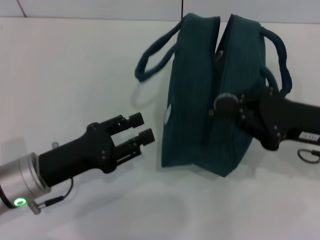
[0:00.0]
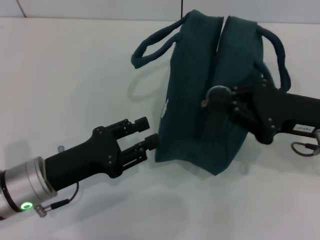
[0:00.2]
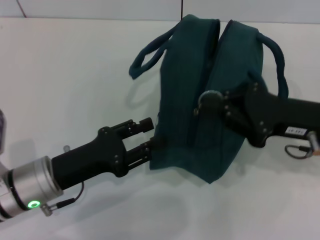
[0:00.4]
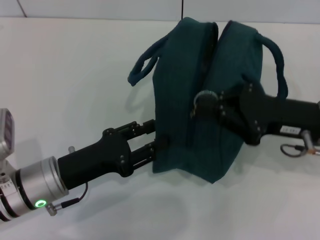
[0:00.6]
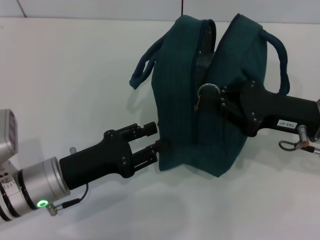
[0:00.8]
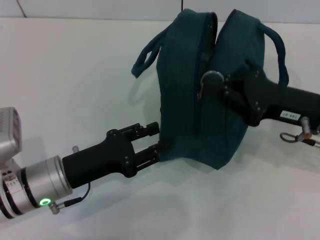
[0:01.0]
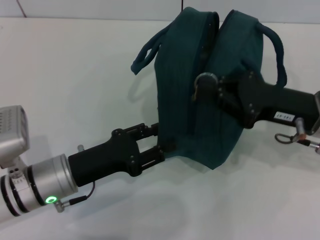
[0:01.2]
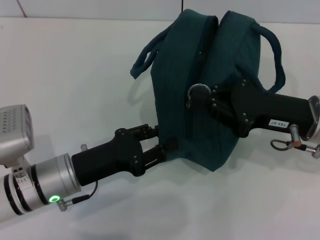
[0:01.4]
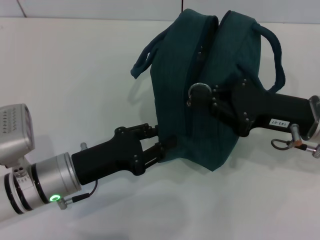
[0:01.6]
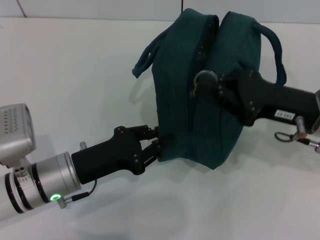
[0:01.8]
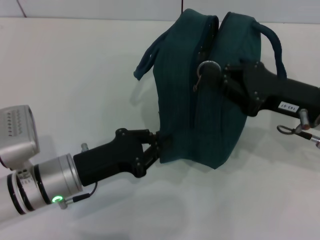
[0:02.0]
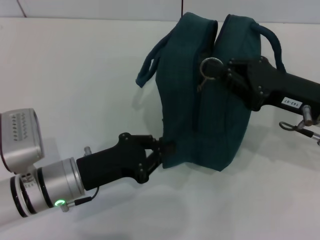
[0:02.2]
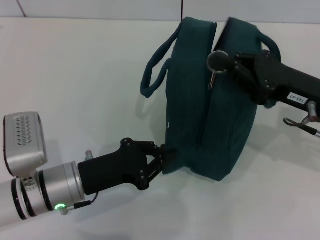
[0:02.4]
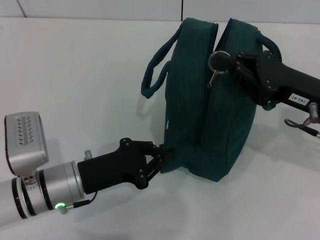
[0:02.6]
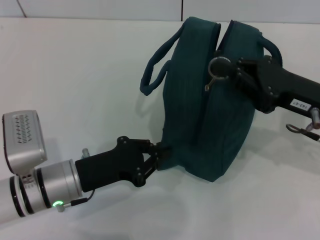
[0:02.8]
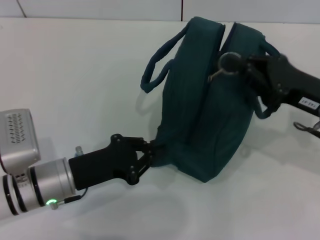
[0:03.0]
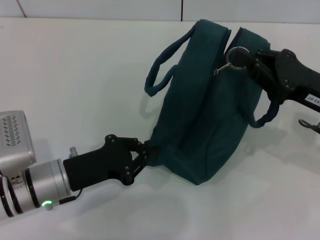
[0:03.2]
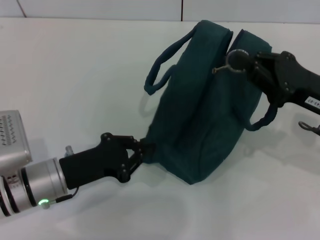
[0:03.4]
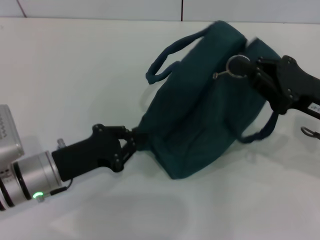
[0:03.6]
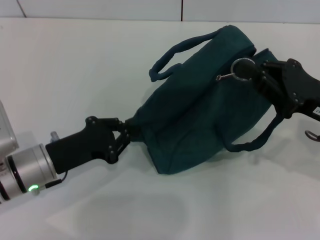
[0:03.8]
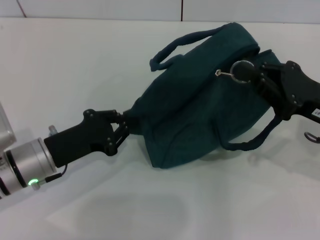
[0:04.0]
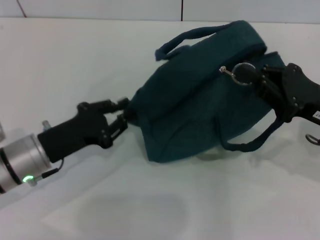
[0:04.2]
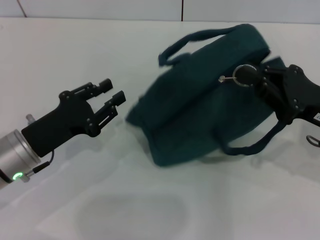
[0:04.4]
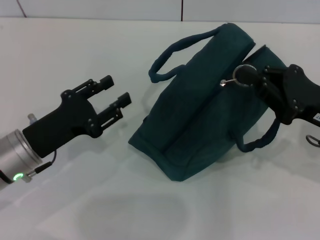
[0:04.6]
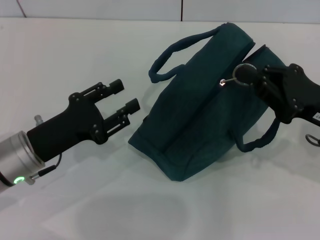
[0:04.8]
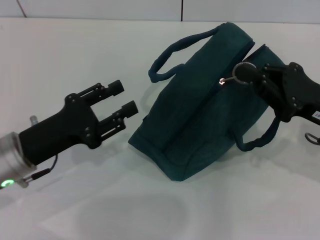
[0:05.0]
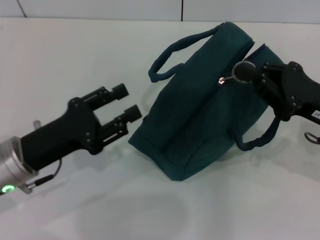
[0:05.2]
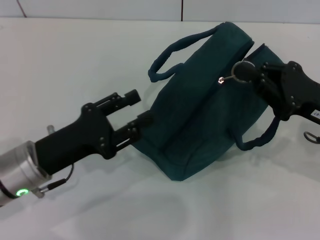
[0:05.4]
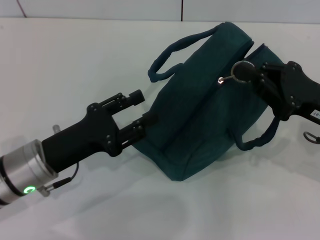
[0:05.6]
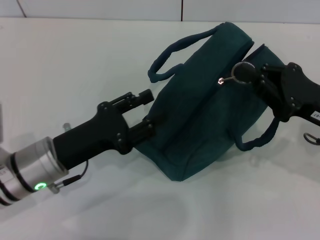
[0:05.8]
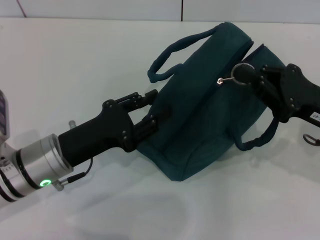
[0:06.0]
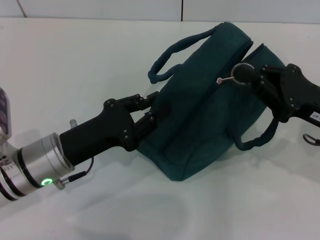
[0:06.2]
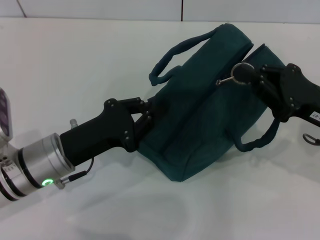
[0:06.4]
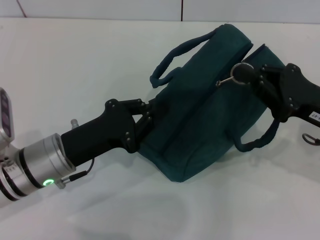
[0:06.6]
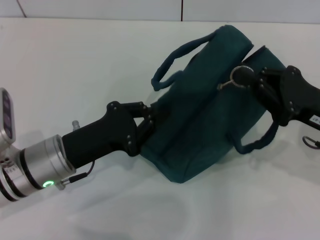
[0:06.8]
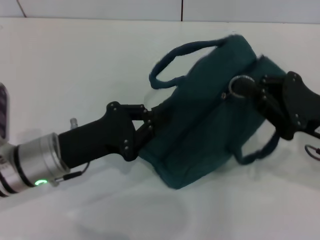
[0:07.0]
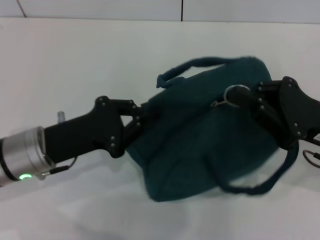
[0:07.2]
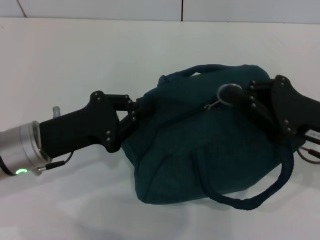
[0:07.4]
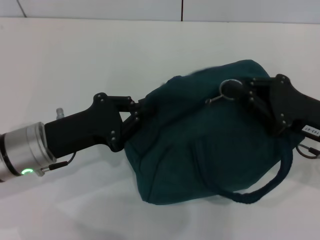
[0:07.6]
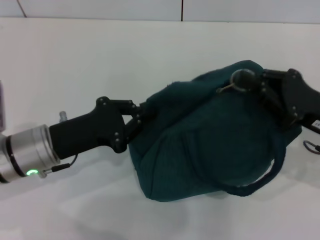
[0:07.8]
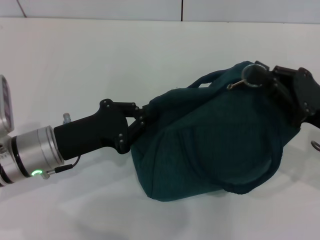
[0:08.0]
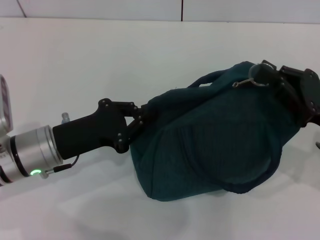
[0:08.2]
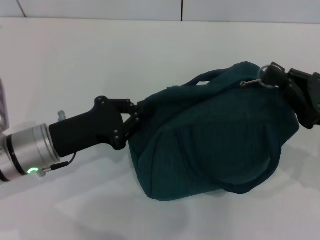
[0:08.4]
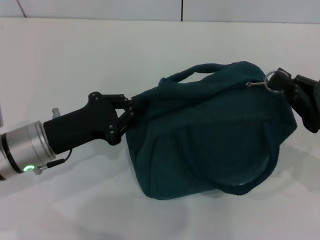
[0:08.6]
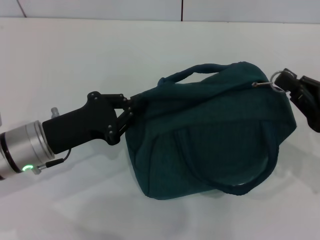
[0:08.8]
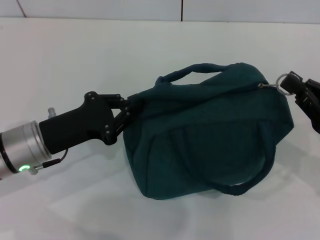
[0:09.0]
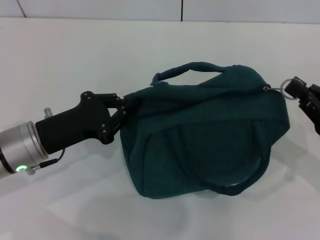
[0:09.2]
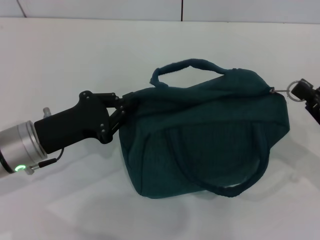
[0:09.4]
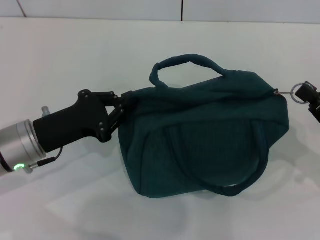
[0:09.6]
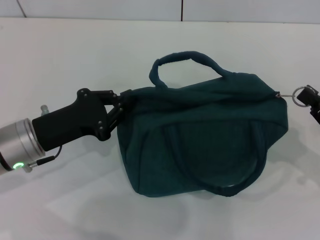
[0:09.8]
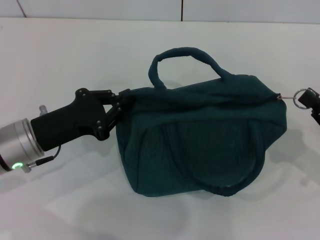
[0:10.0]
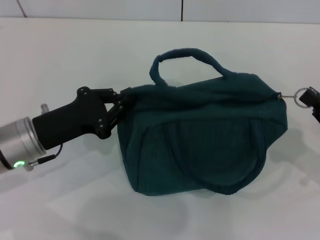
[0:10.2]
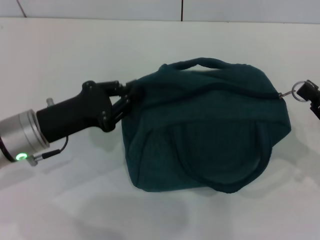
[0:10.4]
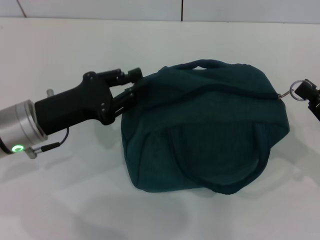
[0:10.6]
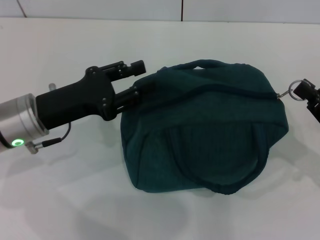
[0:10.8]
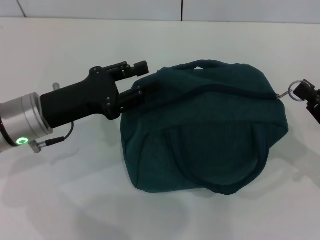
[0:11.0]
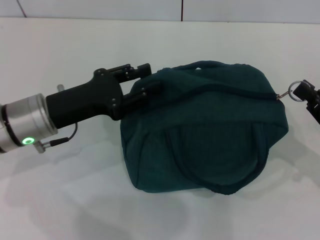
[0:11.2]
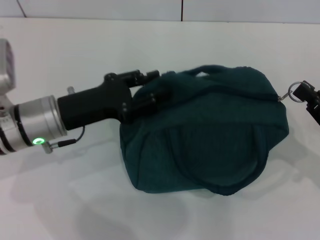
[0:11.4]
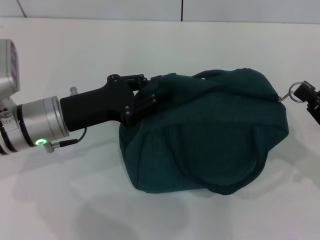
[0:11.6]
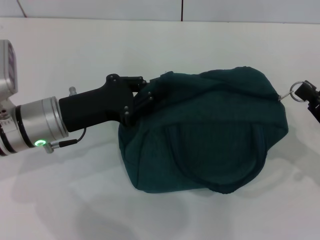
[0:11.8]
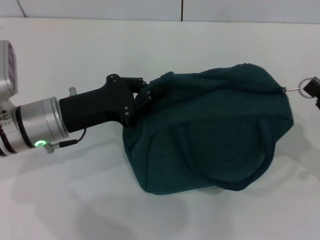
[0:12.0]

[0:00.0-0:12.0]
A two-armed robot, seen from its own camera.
0:01.6 to 0:03.0: The left gripper closes.
0:03.0 to 0:04.4: The left gripper ends up some 5 cm from where it was.
0:04.4 to 0:06.0: The left gripper opens.
0:06.0 to 0:07.6: The left gripper closes up.
0:07.6 to 0:09.0: The right gripper is displaced to the right by about 5 cm.
0:09.0 to 0:10.4: There are only small adjustments of the grippers.
0:10.4 to 0:12.0: The left gripper opens, then closes again.

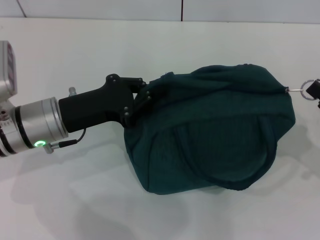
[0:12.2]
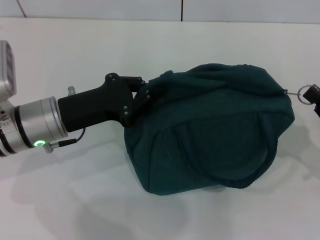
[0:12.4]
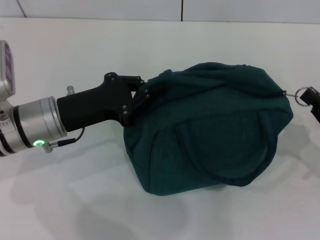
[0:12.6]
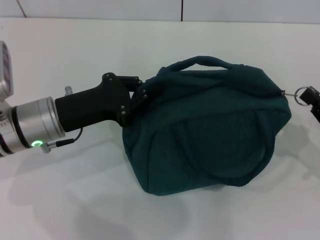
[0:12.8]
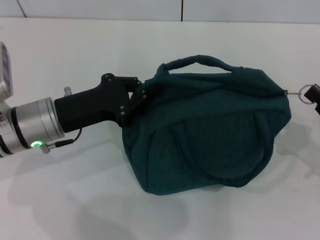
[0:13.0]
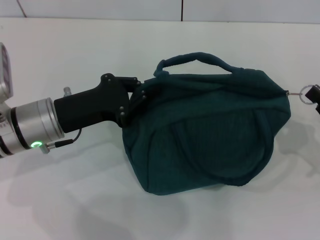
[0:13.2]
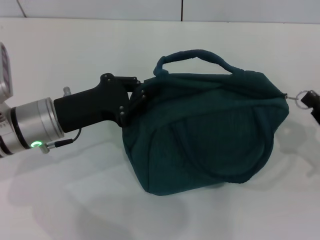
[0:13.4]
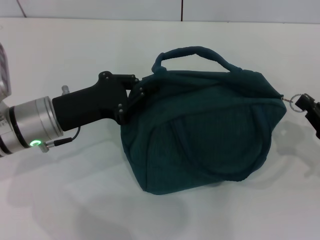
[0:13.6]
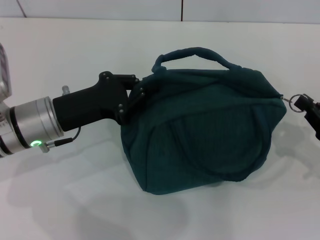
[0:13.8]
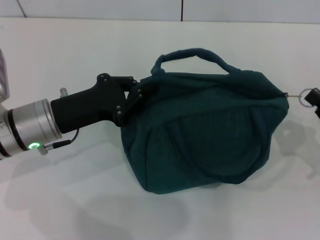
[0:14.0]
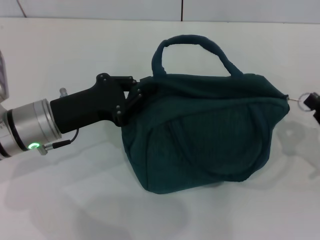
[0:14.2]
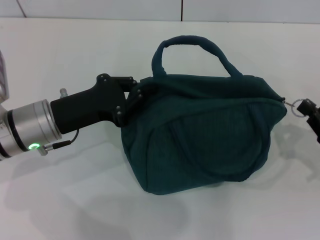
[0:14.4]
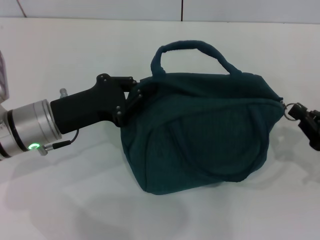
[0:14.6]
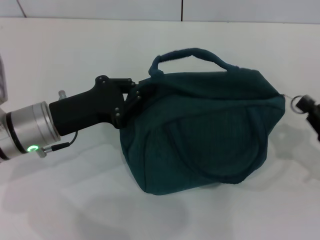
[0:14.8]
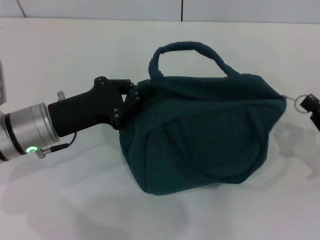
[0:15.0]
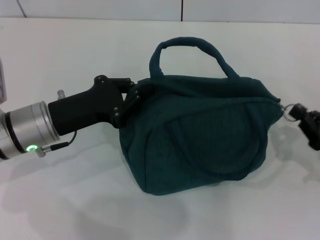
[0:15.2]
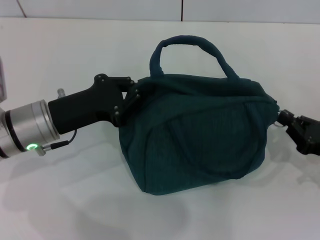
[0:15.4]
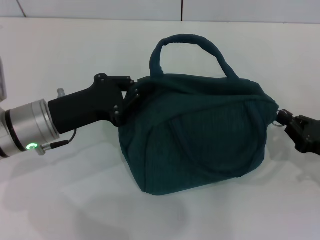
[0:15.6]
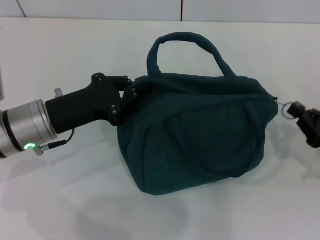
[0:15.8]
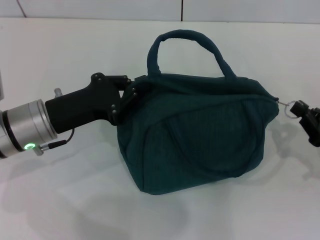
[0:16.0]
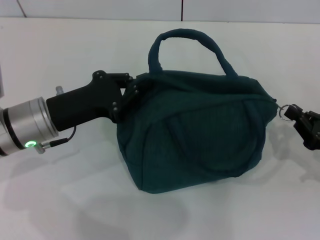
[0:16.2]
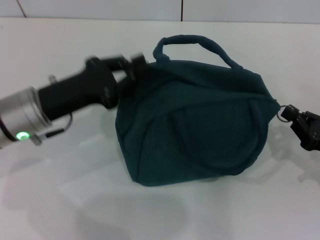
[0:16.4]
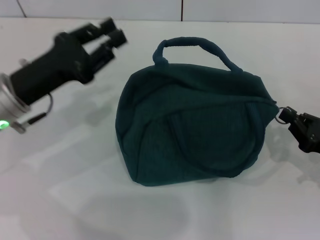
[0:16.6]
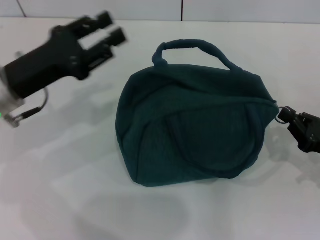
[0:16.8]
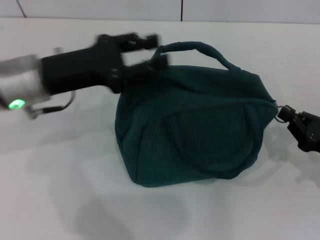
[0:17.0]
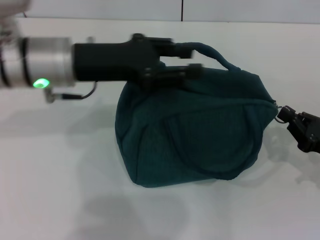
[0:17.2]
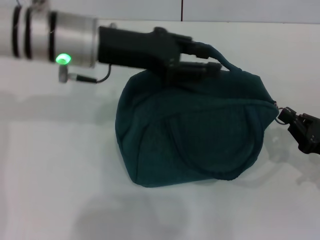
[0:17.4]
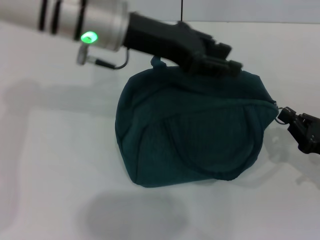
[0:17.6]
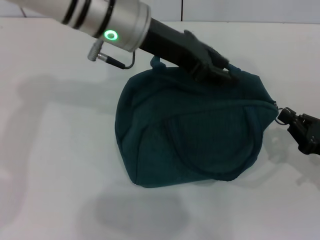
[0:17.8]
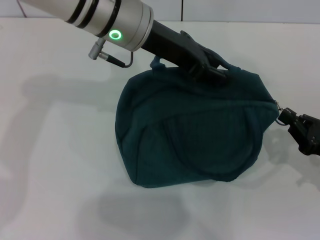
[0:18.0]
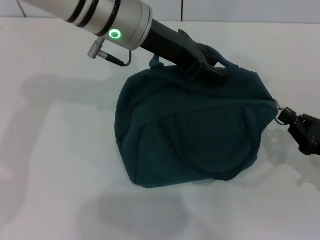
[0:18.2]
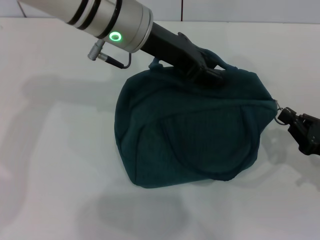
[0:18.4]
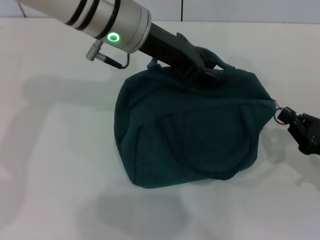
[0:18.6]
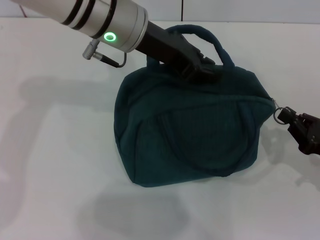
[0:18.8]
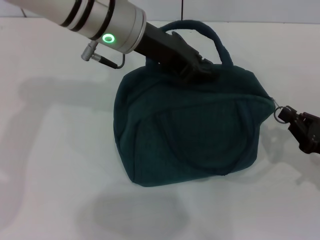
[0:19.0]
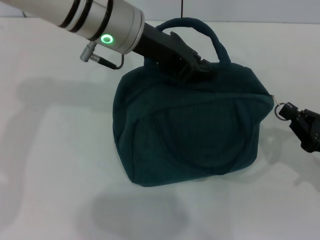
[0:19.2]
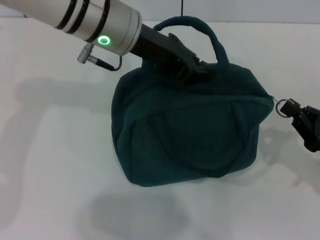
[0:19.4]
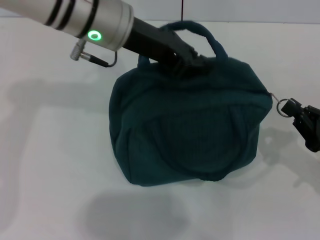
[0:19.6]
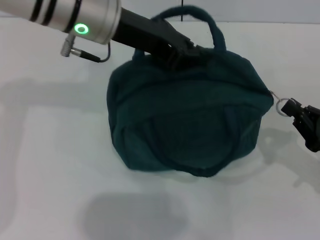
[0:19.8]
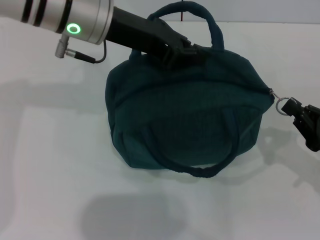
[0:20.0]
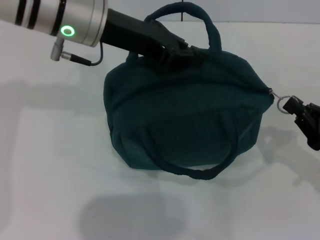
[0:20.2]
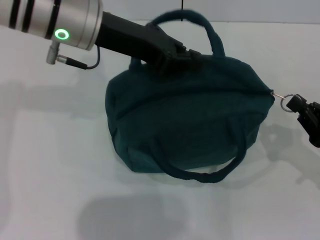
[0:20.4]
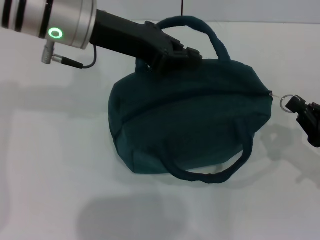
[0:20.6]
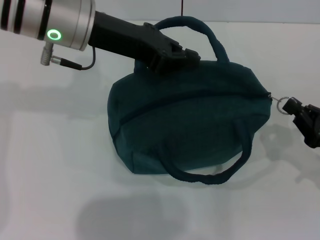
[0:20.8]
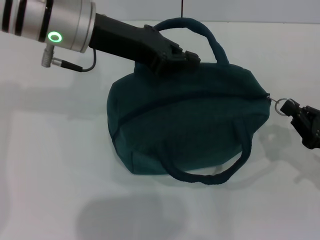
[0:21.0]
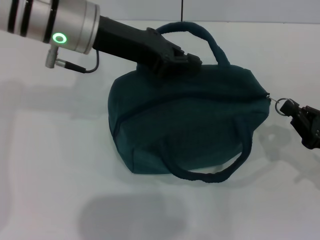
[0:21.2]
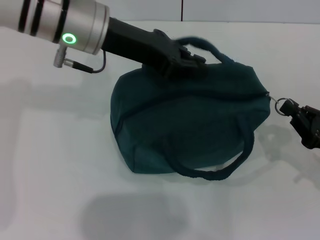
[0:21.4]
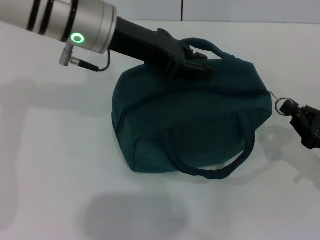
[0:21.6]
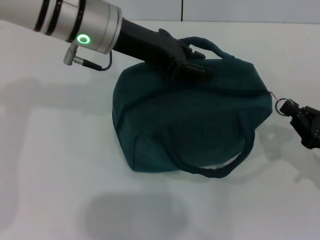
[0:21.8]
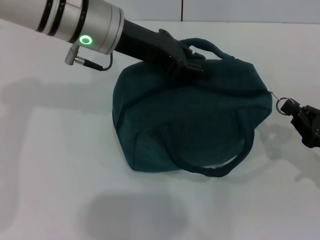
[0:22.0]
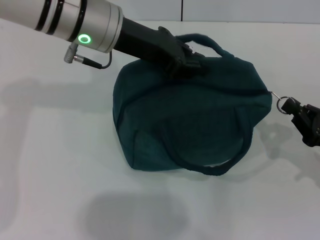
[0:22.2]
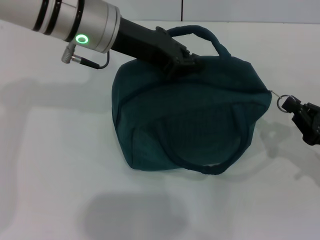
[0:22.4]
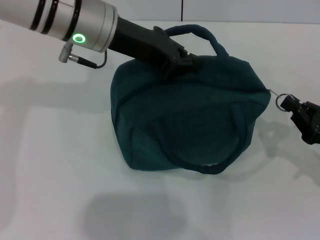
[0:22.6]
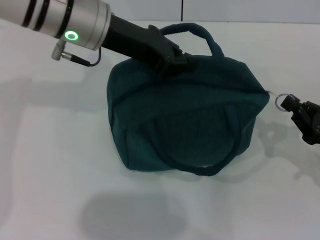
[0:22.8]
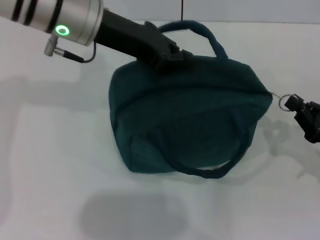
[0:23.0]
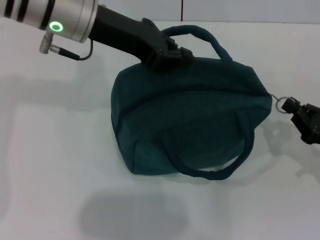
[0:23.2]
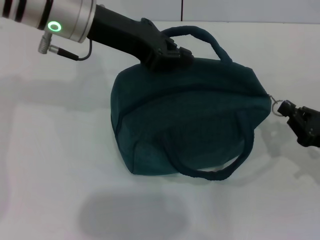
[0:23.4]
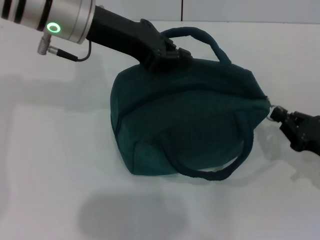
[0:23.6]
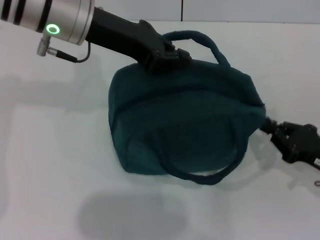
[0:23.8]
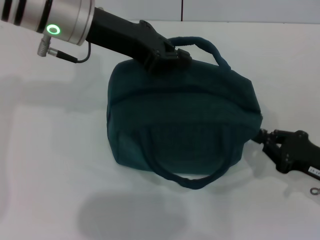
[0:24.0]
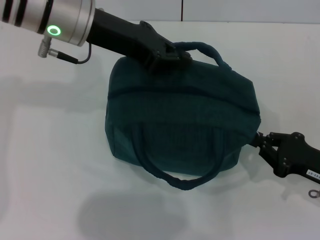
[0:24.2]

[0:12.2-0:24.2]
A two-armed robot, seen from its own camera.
0:12.2 to 0:13.8: There are only small adjustments of the grippers.
0:13.8 to 0:15.2: The two grippers keep their place.
0:16.6 to 0:18.2: The left gripper travels to the right, upward and forward by some 20 cm.
0:18.2 to 0:19.8: The left gripper closes up.
0:19.8 to 0:21.2: There are only small adjustments of the grippers.
0:21.2 to 0:22.6: The left gripper opens and closes again.
0:22.6 to 0:24.2: The grippers stay close to where they were, moving slightly.
